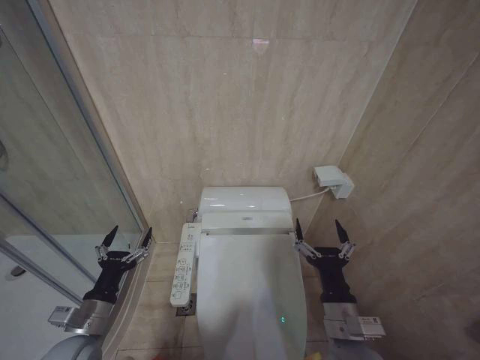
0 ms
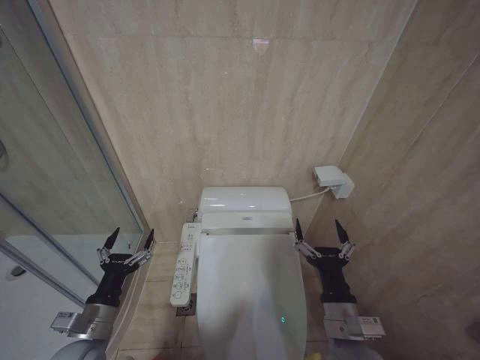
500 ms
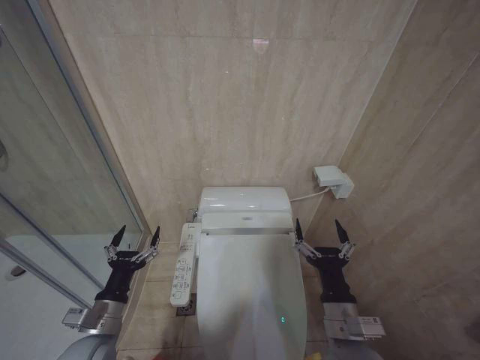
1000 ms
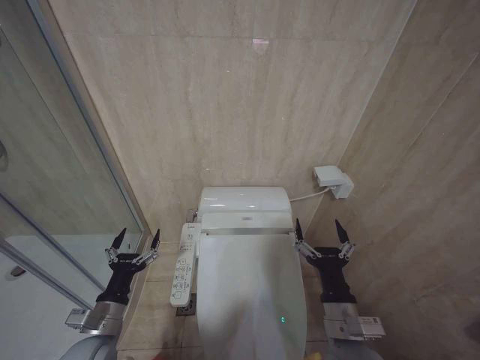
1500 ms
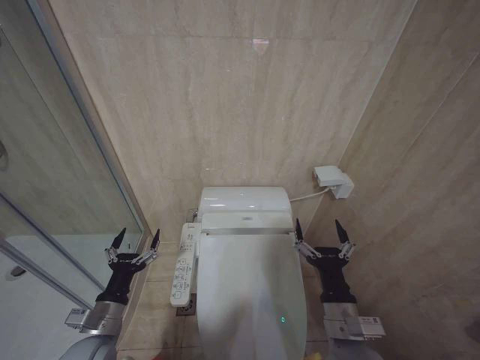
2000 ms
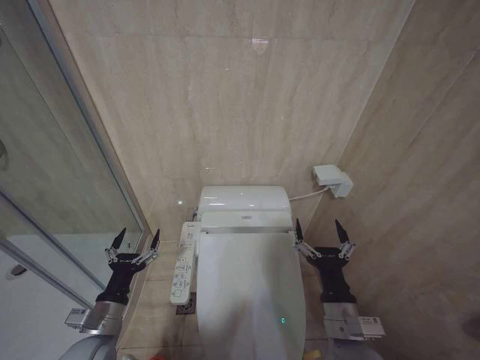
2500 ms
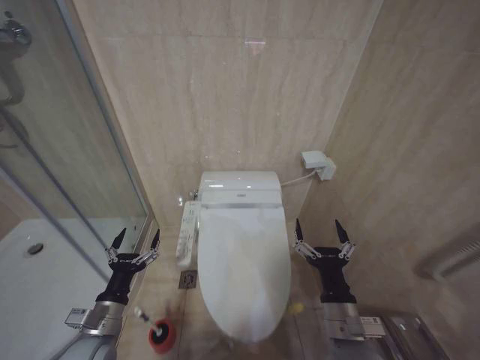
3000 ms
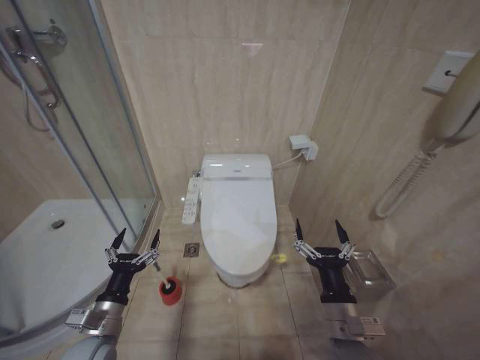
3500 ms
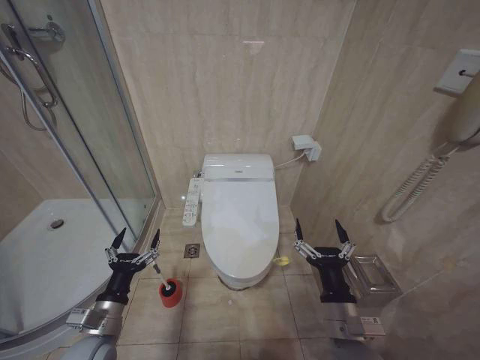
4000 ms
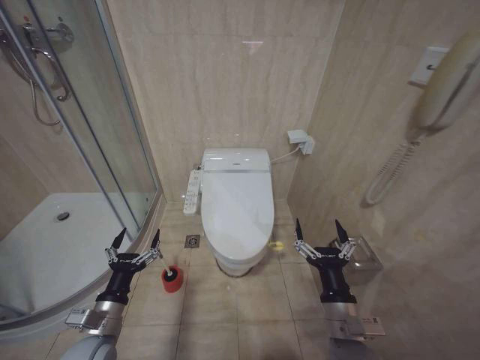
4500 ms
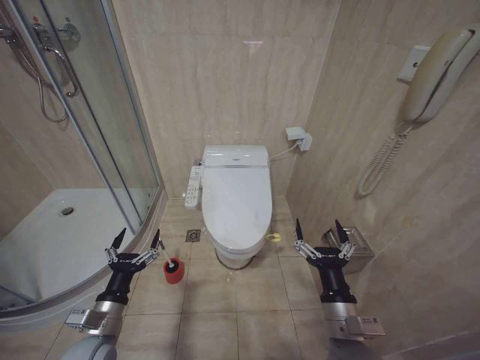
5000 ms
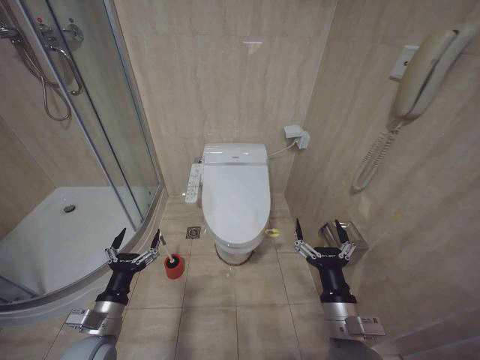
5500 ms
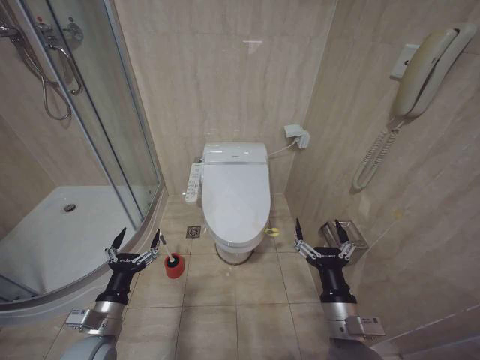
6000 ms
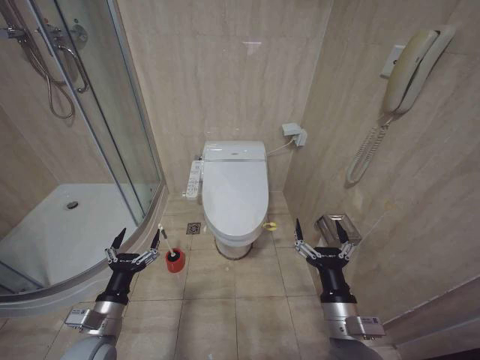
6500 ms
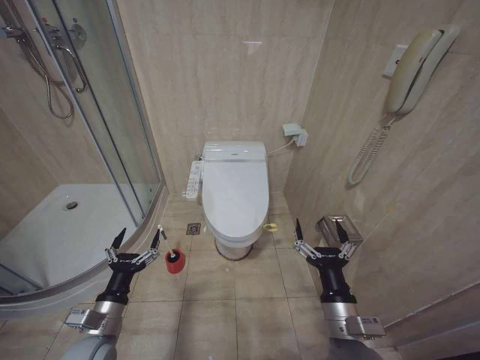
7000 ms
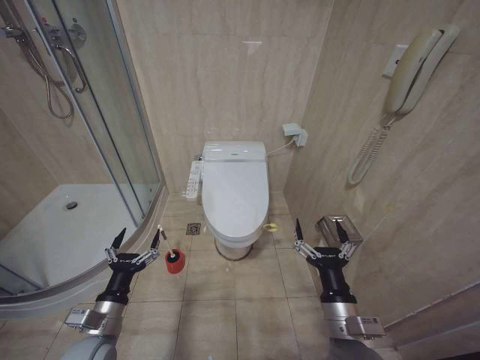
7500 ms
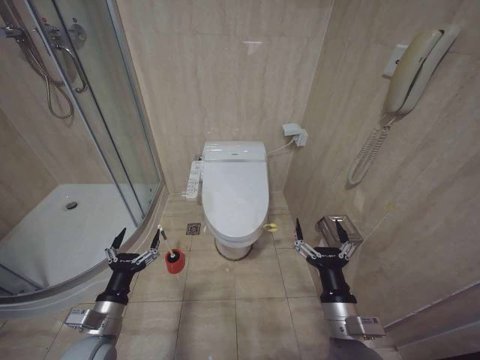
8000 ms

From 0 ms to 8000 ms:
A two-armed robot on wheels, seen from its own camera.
Task of the whole recording: Open the toilet lid, clean the toilet bowl with a toilet brush, close the toilet lid, and flush.
From 0 ms to 2000 ms: The grippers make only small movements.
From 4000 ms to 8000 ms: The two grippers keep their place.

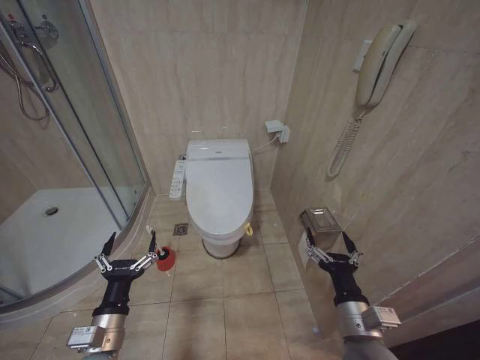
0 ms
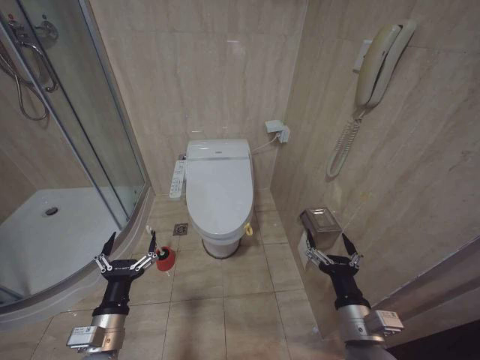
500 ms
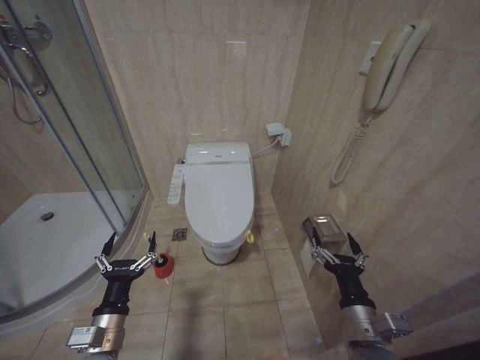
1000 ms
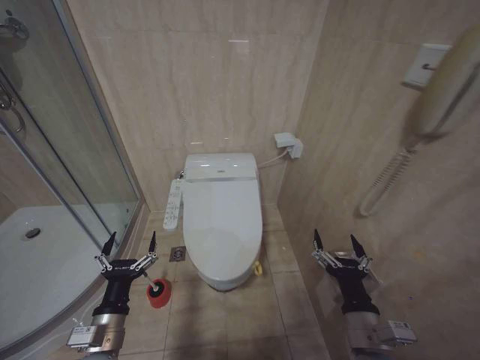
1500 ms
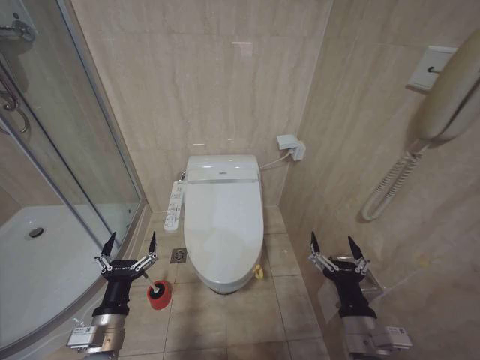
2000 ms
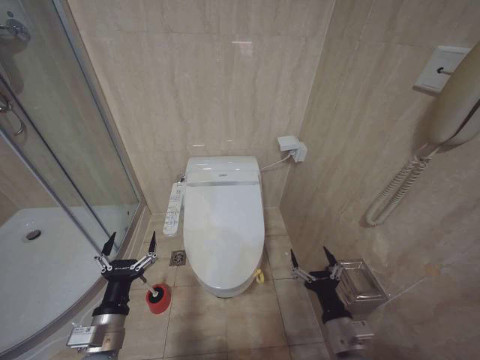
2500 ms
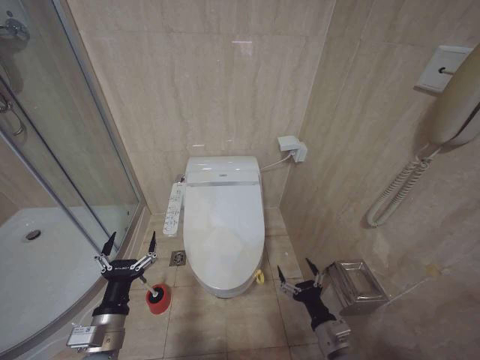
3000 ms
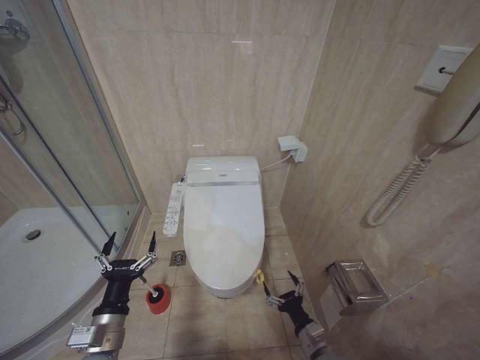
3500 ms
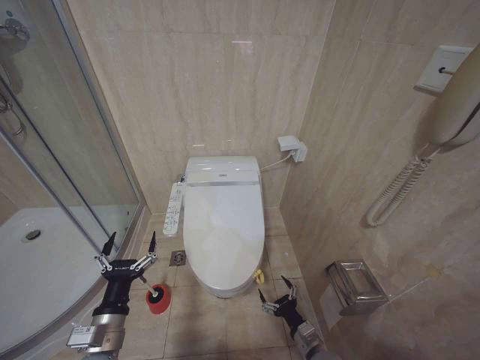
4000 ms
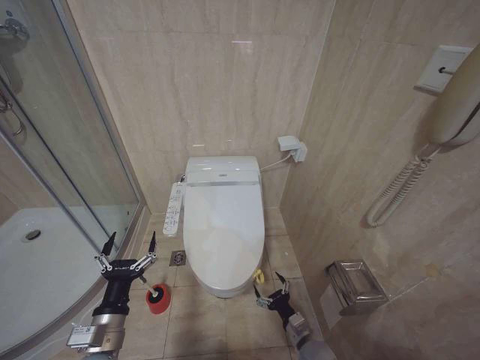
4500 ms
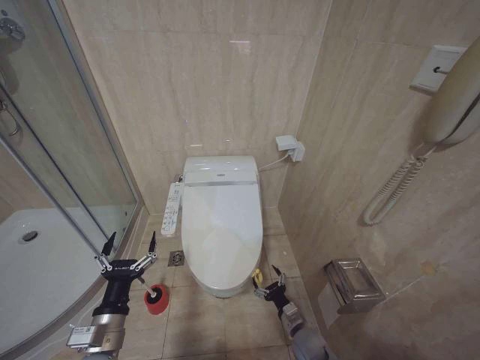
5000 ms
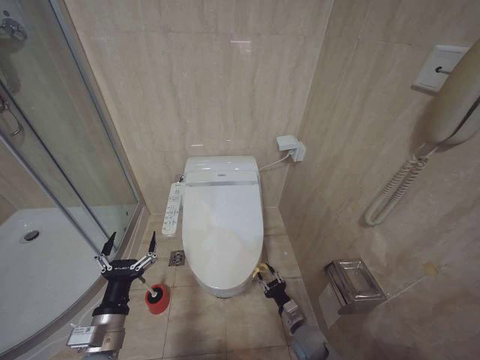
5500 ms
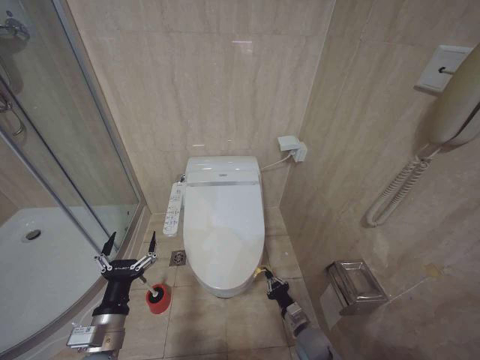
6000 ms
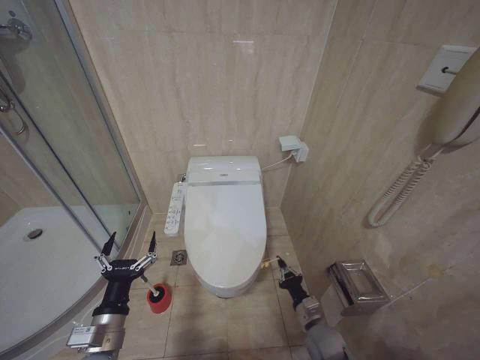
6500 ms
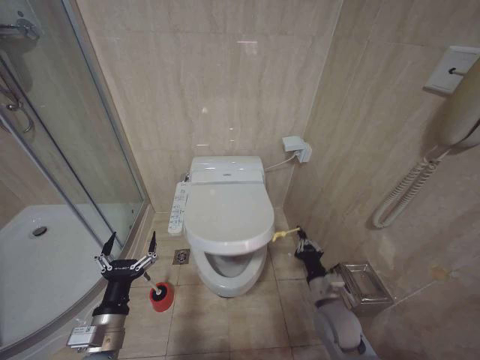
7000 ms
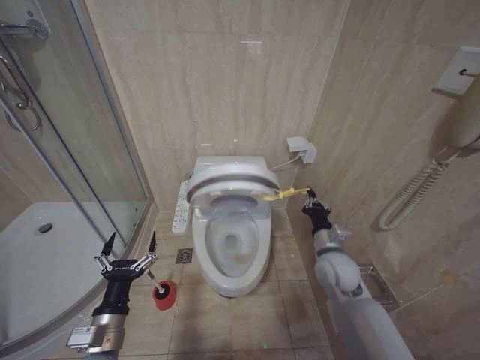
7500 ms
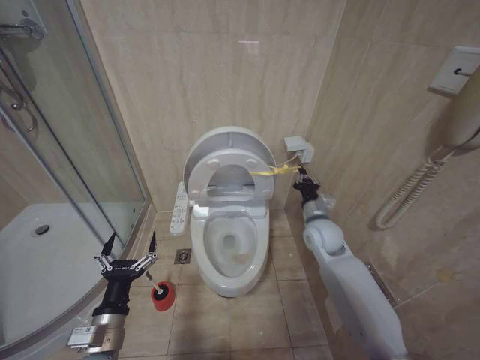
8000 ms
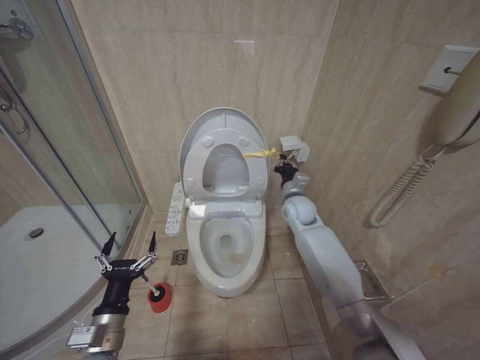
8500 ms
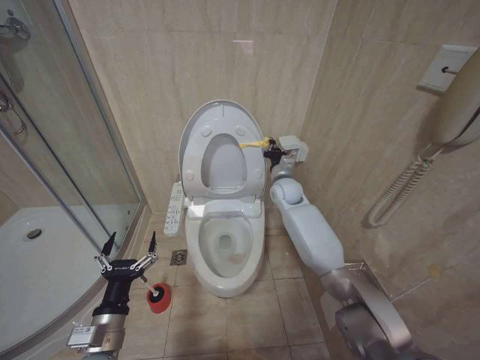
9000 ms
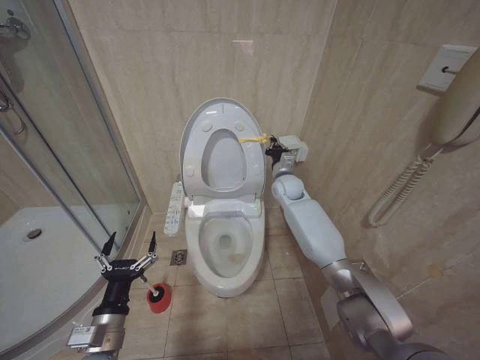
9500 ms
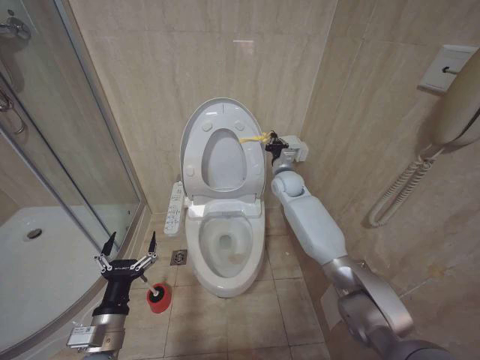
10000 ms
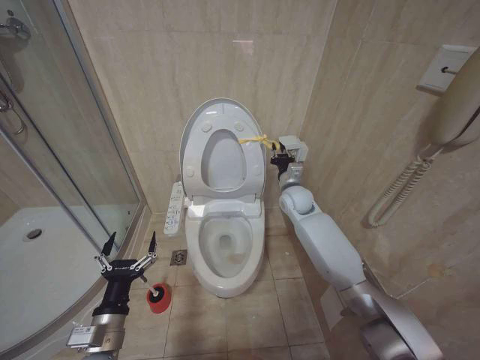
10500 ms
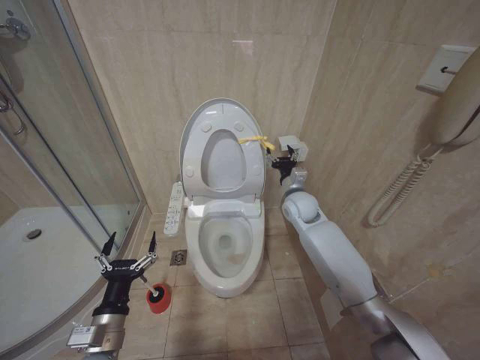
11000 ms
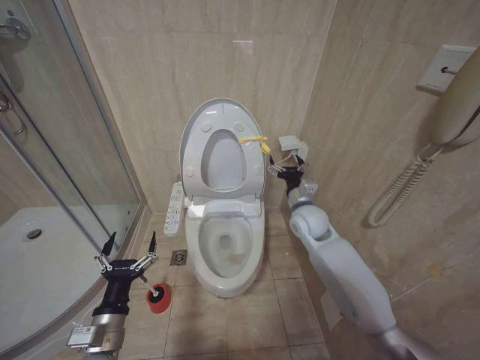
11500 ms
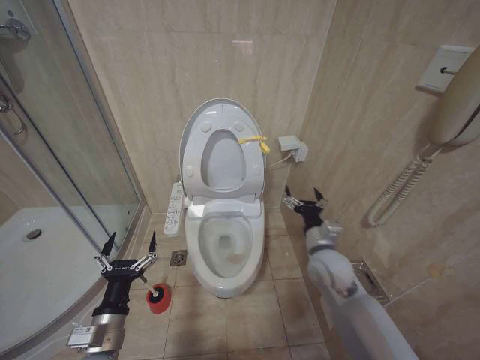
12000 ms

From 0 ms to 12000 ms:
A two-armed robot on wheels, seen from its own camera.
Task of the whole recording: Open the toilet lid, clean the toilet bowl with a toilet brush, close the toilet lid, and flush.
From 2000 ms to 4000 ms: The right gripper shifts approximately 20 cm downward.
From 4000 ms to 6000 ms: The right gripper shifts approximately 5 cm forward, and closes.
From 6000 ms to 8000 ms: The right gripper moves upward and forward, about 35 cm.
From 8000 ms to 10000 ms: The right gripper moves forward, to the left and upward, about 20 cm.
From 10000 ms to 12000 ms: The right gripper moves backward, some 25 cm, and opens up.

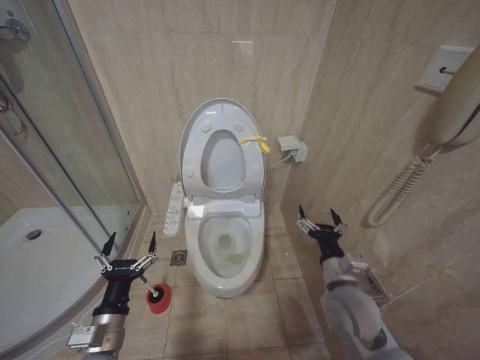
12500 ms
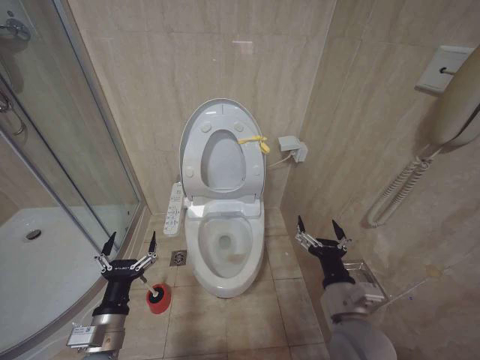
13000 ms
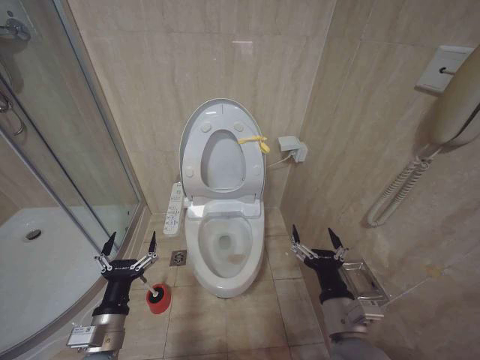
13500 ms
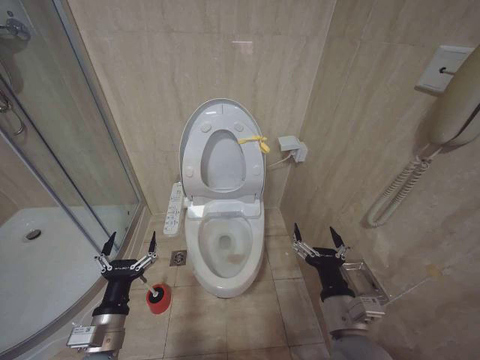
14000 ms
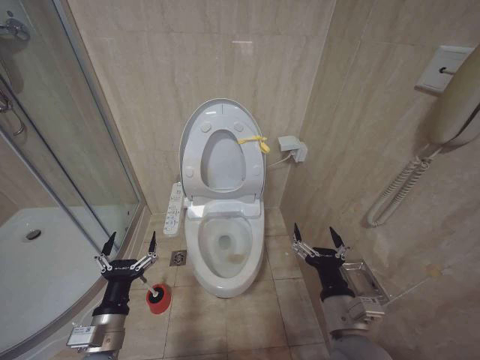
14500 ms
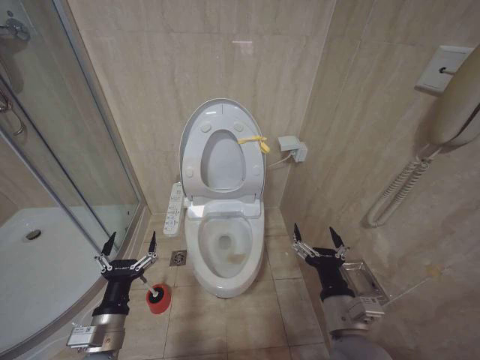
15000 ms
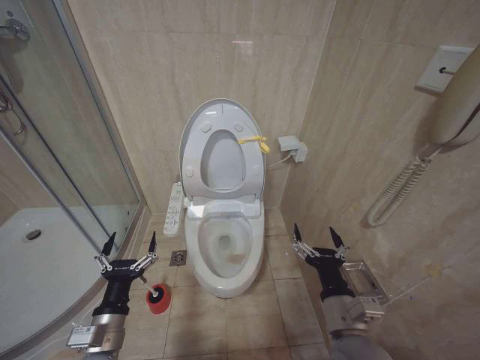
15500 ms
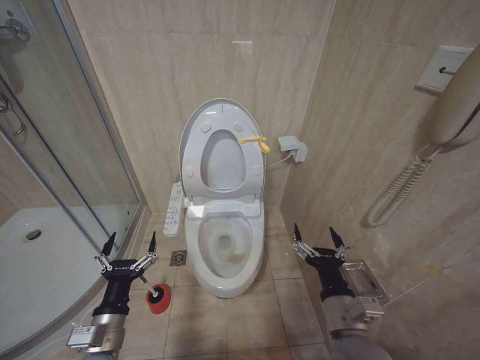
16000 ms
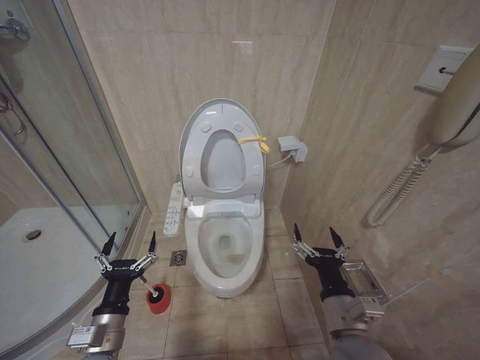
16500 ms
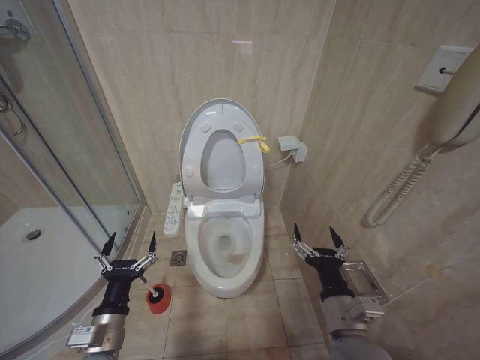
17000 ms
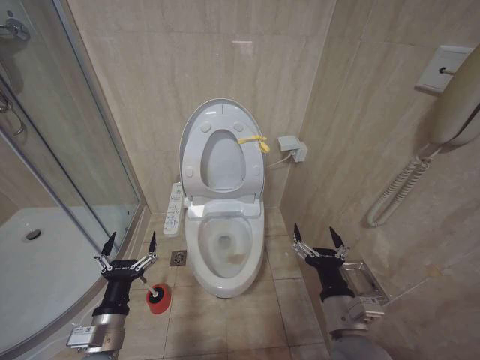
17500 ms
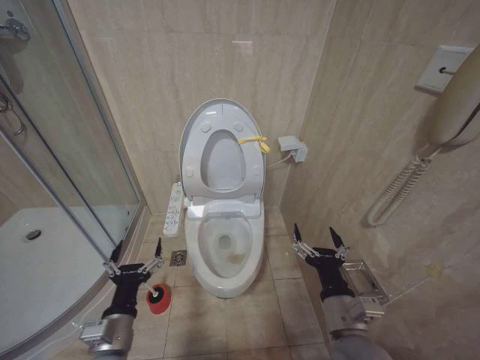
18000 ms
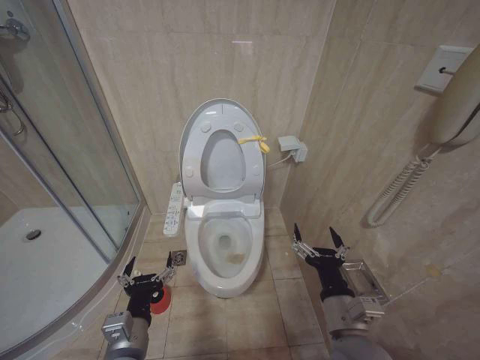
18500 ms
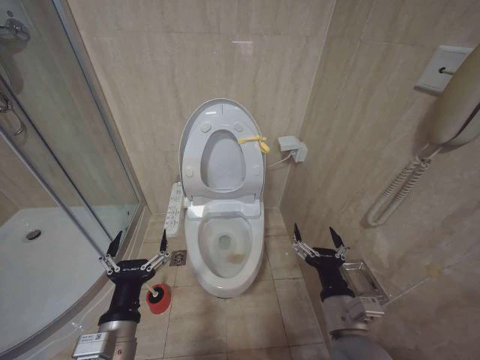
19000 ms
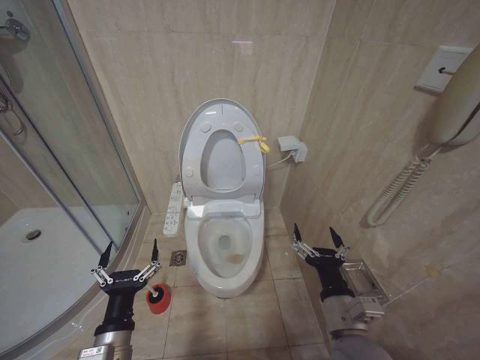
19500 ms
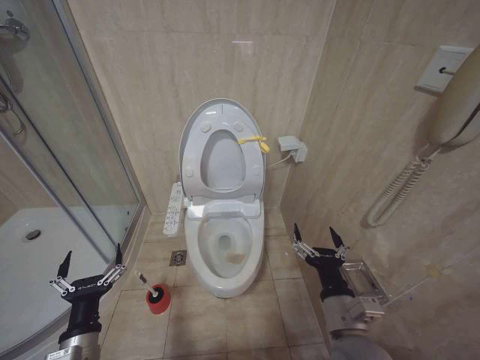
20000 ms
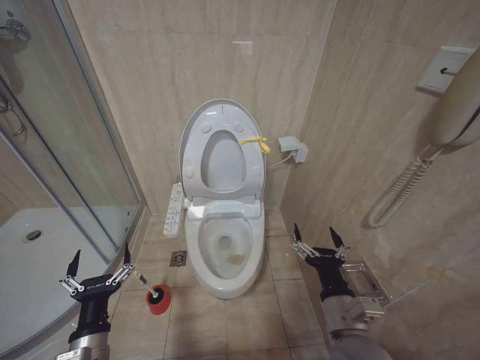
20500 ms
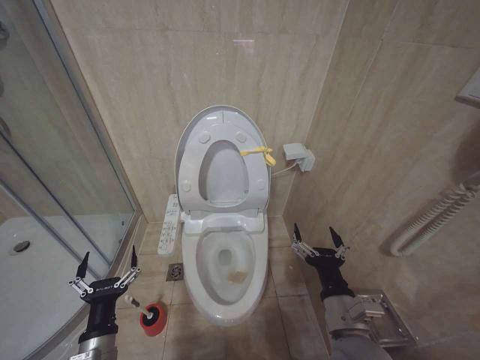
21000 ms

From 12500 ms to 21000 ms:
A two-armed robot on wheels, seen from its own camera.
Task of the whole recording: Open the toilet lid, clean the toilet bowl with a toilet brush, close the toilet lid, and flush.
From 12500 ms to 14500 ms: The right gripper travels backward by approximately 10 cm.
From 14500 ms to 16500 ms: The two grippers keep their place.
From 16500 ms to 19000 ms: The left gripper shifts approximately 10 cm upward and to the right.
From 19000 ms to 21000 ms: The left gripper shifts roughly 10 cm downward and to the left.
